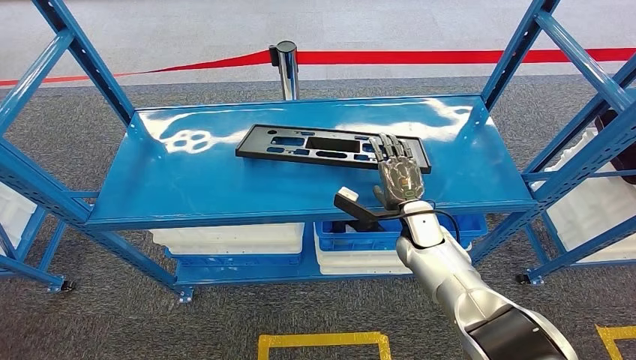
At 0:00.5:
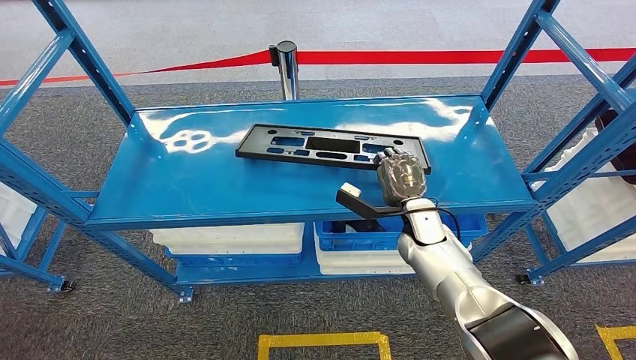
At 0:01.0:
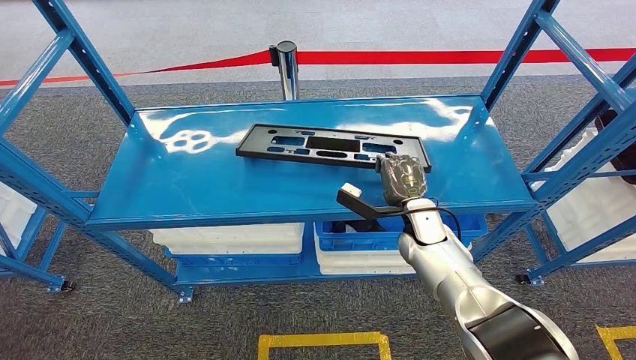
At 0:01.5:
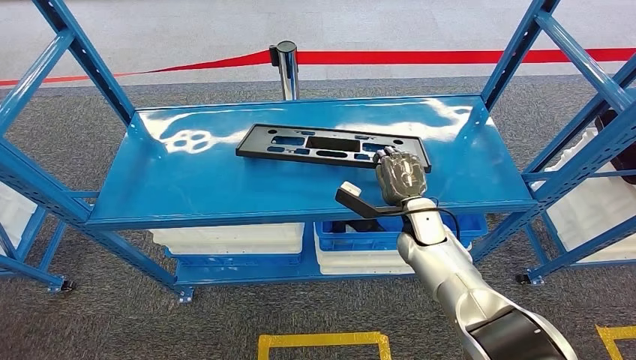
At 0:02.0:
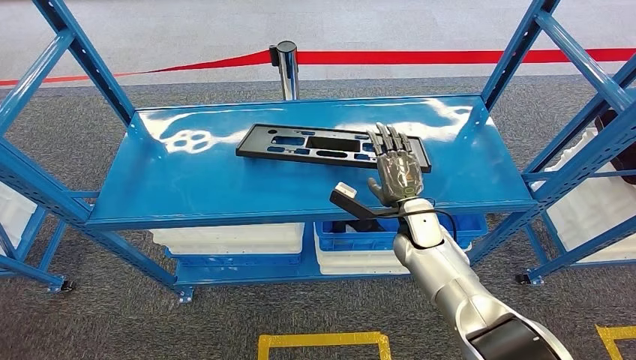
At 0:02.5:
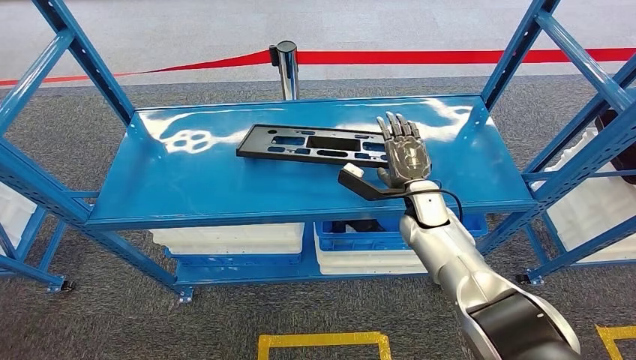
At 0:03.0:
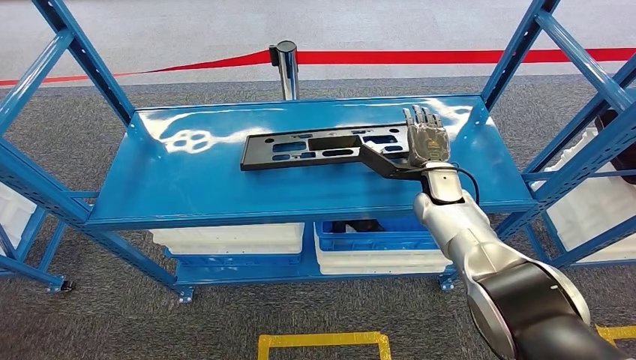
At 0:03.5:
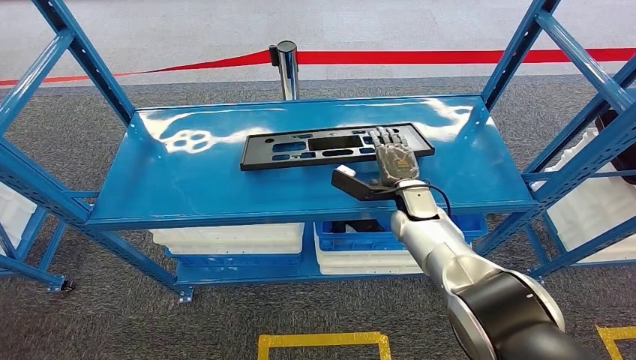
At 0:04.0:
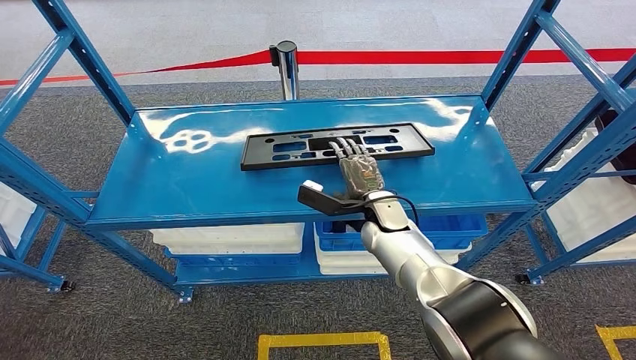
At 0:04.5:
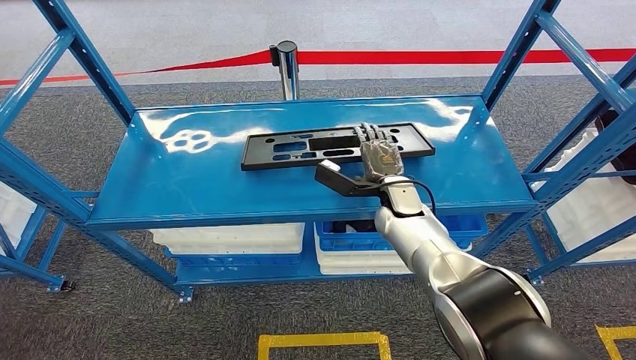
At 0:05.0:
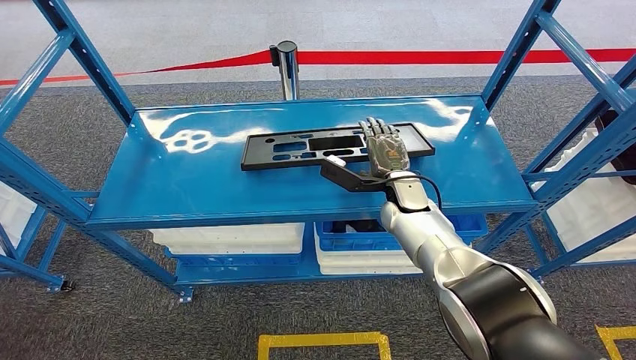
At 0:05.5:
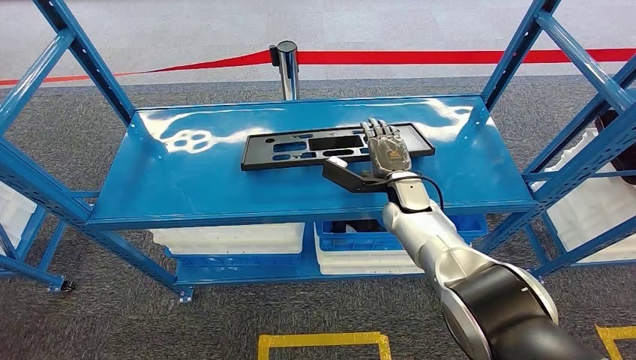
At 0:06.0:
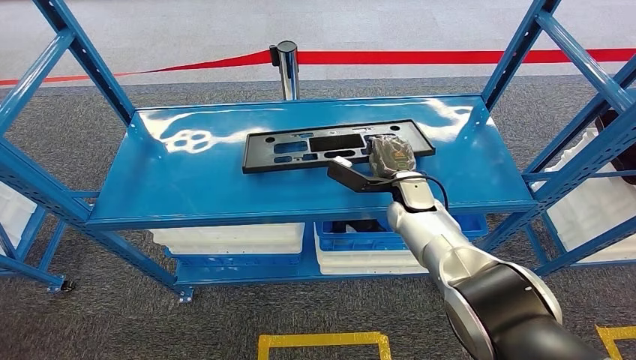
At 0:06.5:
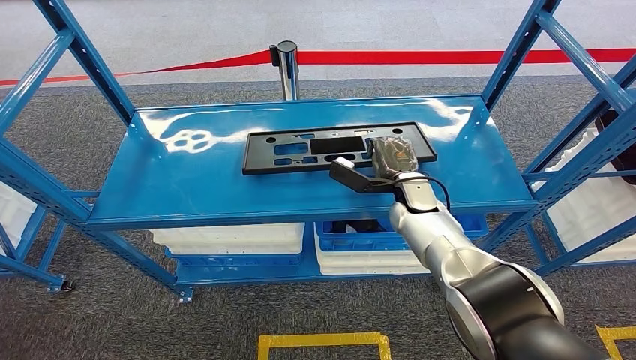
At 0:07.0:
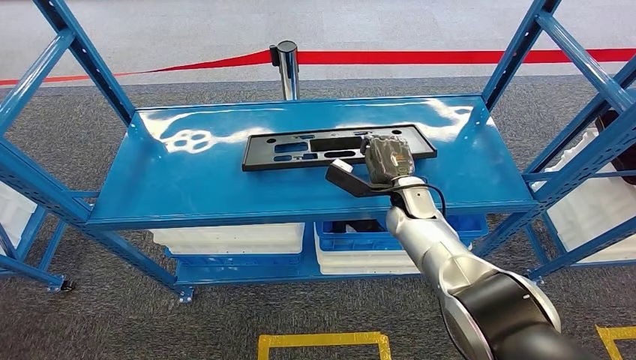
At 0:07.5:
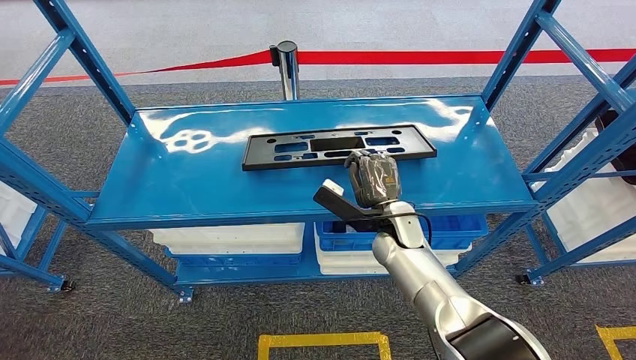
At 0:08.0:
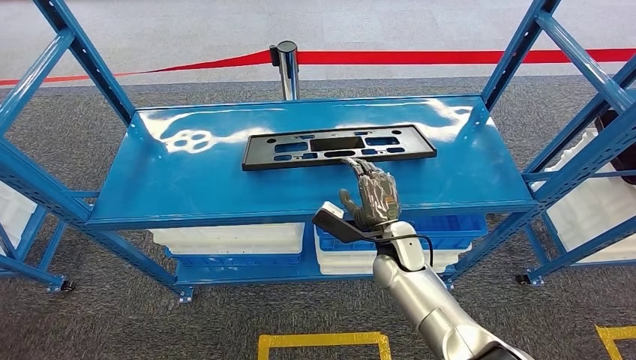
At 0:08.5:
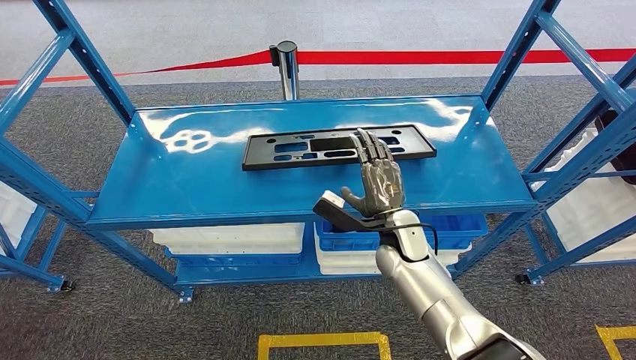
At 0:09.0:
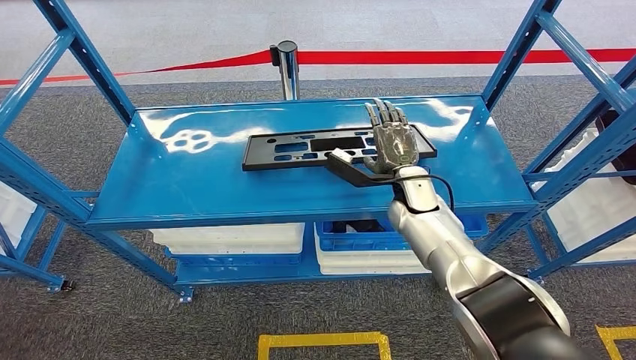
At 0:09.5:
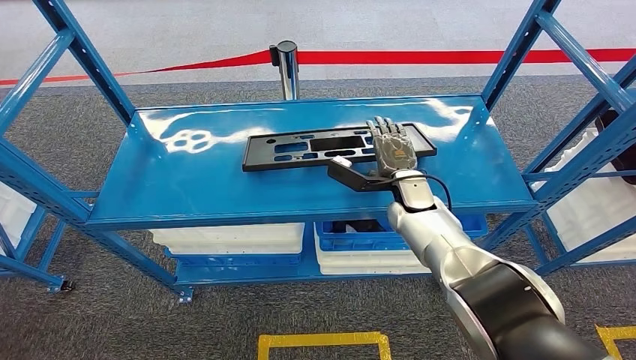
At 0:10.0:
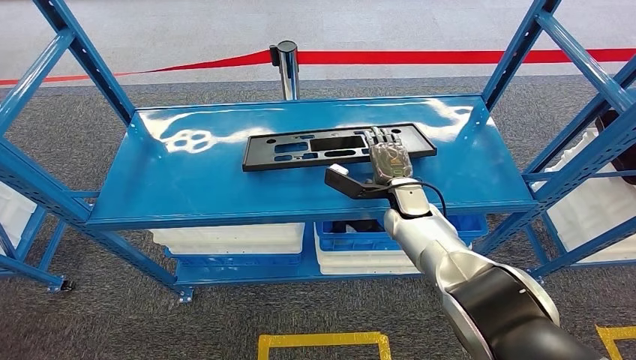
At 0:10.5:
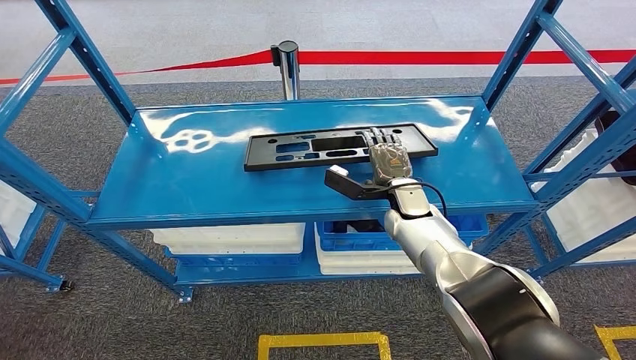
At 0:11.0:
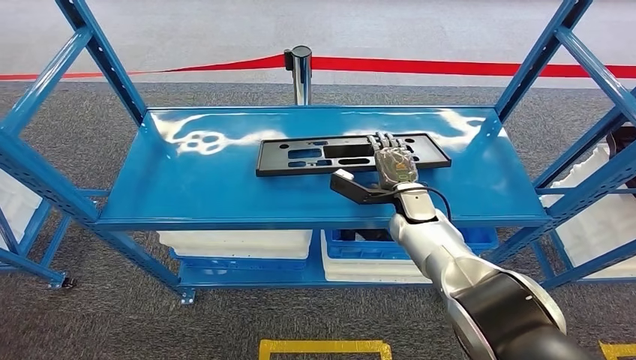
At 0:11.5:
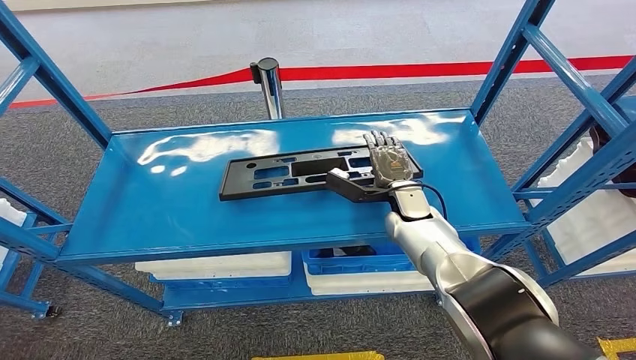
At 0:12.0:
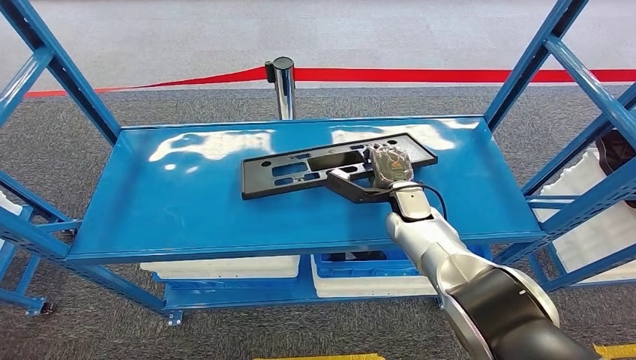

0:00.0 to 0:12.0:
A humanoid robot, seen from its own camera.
0:00.0 to 0:02.0: The hands make only small movements.
0:02.0 to 0:04.0: The right hand goes some 5 cm to the left.
0:04.0 to 0:06.0: The right hand shifts approximately 5 cm to the right.
0:06.0 to 0:08.0: The right hand travels backward by approximately 10 cm.
0:08.0 to 0:10.0: The right hand travels forward by approximately 10 cm.

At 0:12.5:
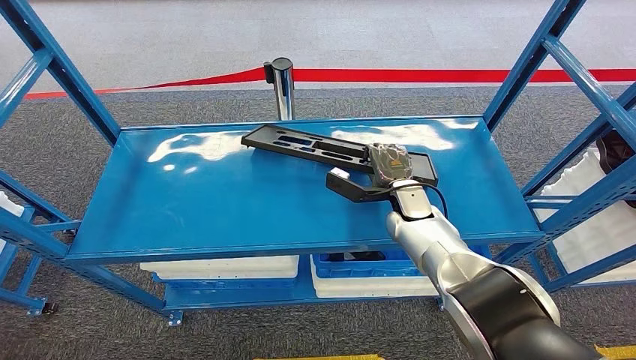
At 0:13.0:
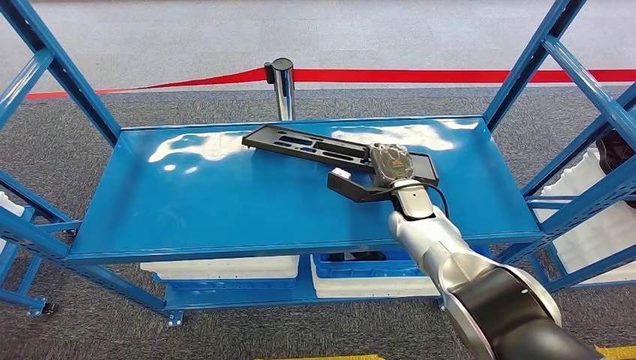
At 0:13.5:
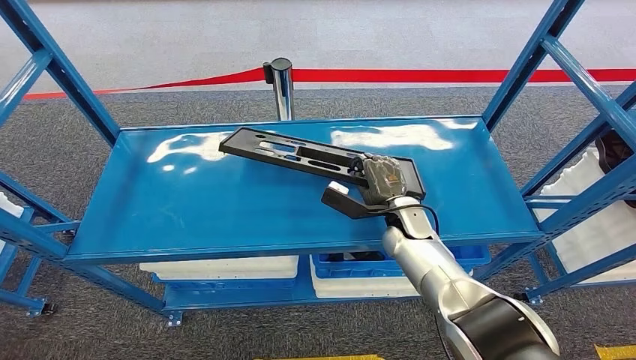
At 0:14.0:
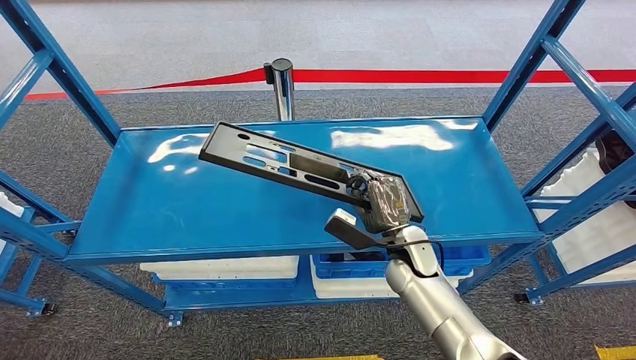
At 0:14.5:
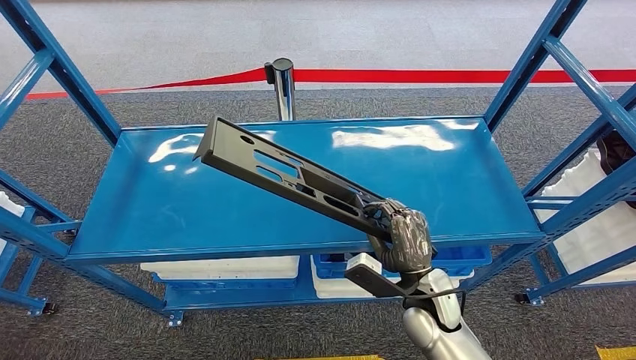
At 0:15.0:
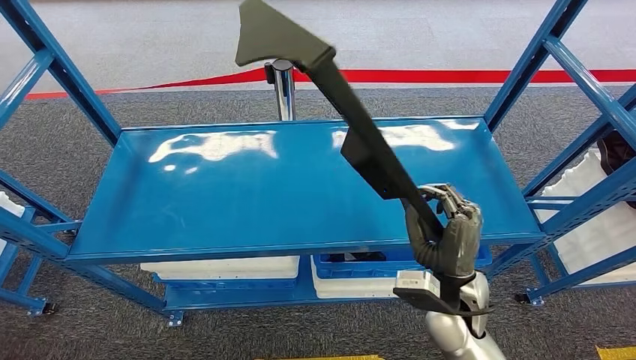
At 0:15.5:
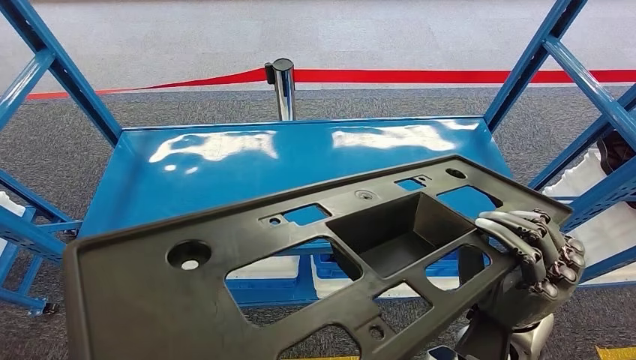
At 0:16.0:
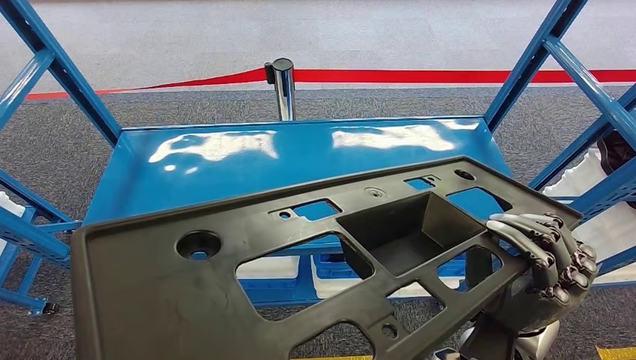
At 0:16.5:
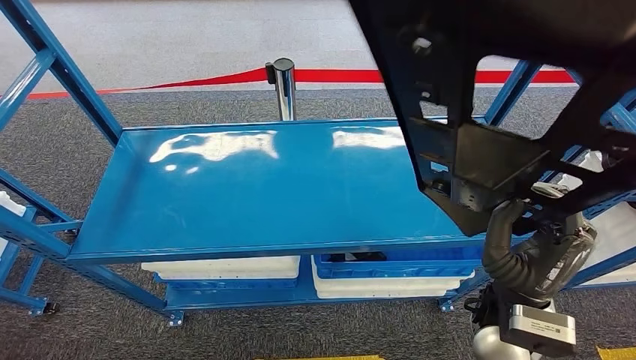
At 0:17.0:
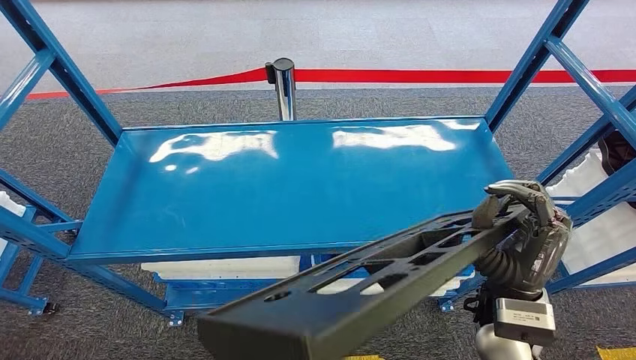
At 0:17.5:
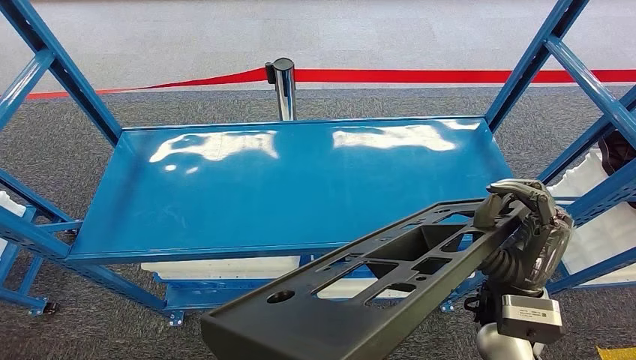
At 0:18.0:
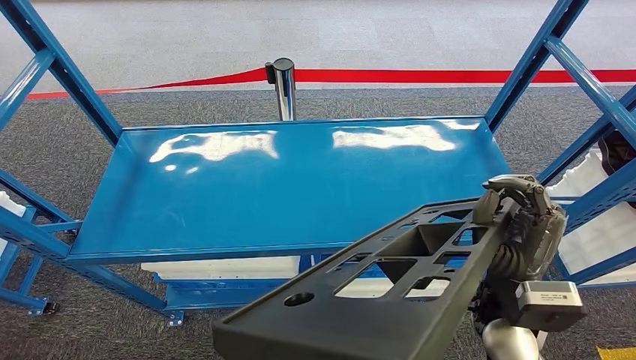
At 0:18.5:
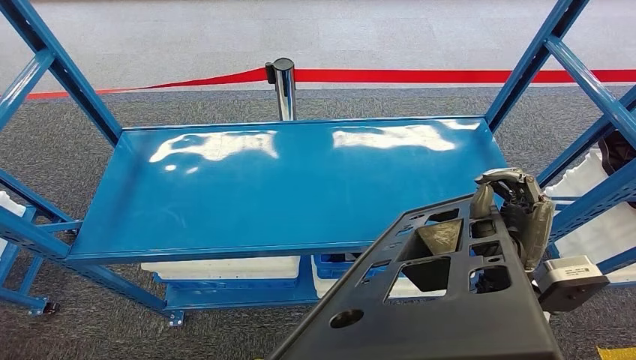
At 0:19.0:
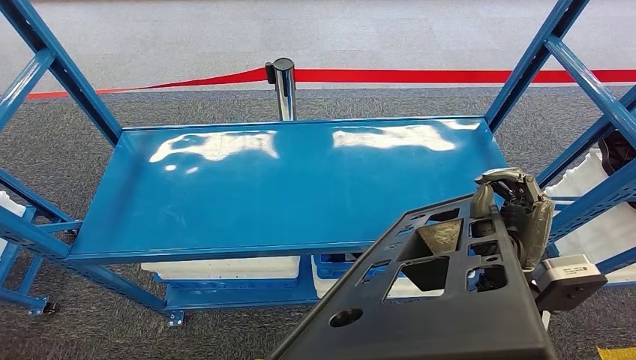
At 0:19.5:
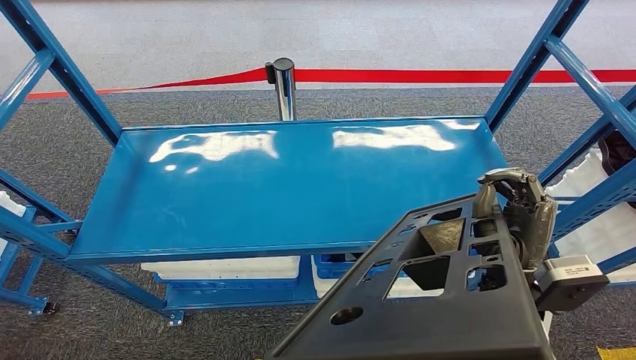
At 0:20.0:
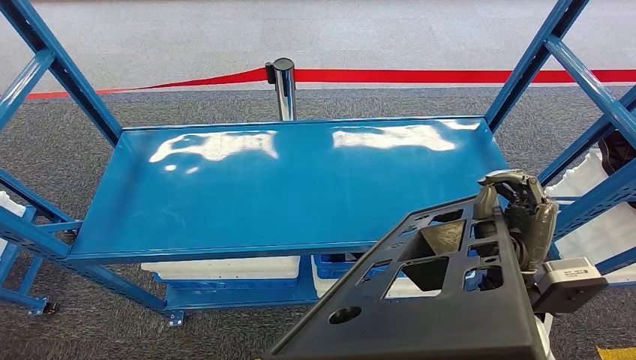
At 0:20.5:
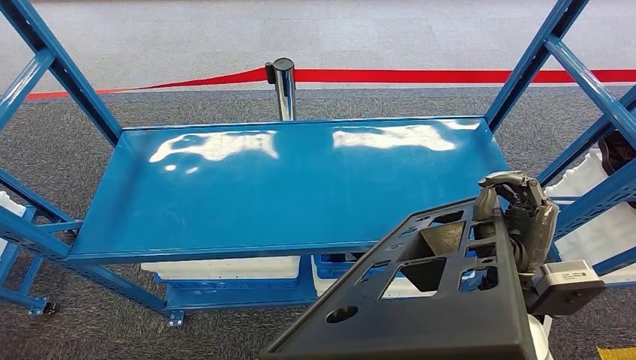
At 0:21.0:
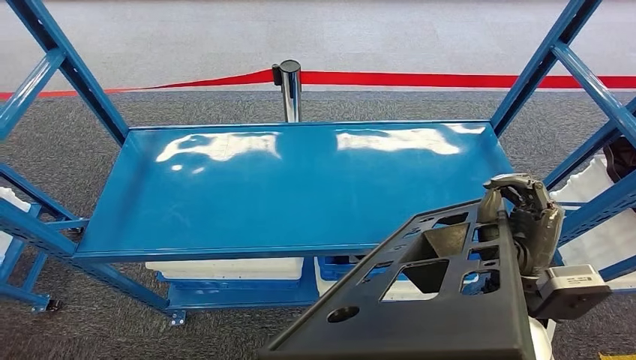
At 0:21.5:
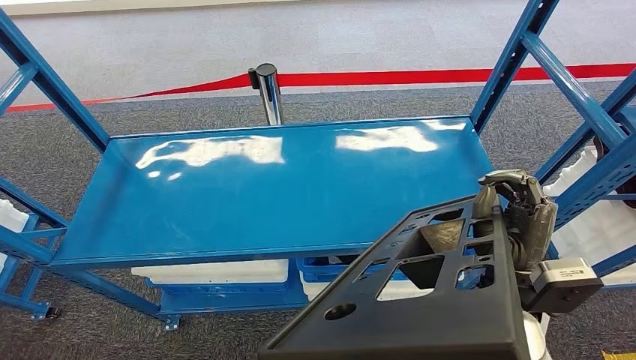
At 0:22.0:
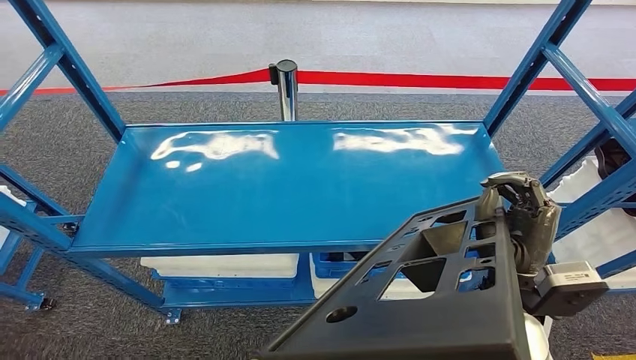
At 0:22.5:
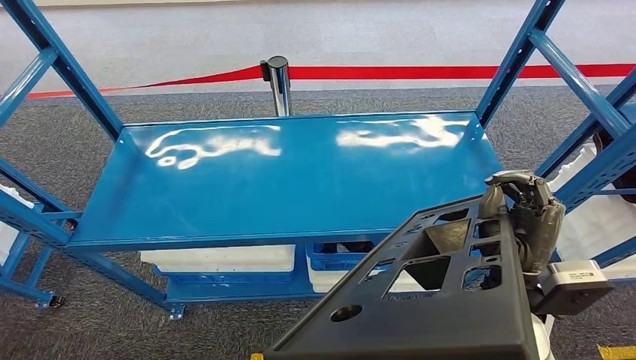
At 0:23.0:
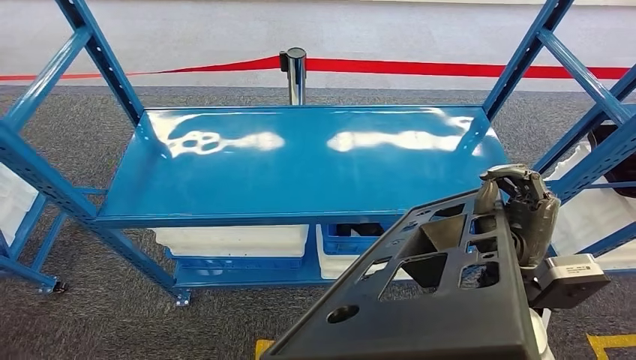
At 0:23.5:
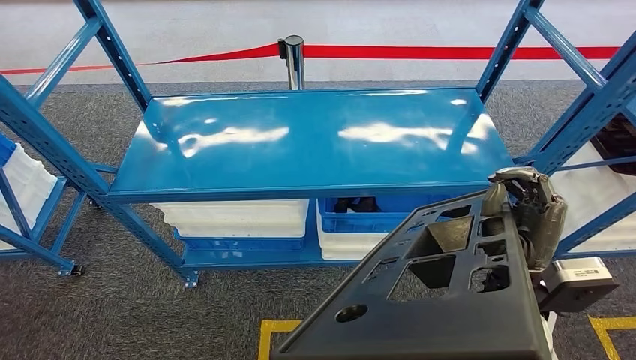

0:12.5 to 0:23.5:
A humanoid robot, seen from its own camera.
Step, 0:12.5 to 0:15.5: Pick up the large material from the shelf.
0:12.5 to 0:14.5: The right hand heads backward, covering roughly 15 cm.
0:18.0 to 0:20.0: The hands stay close to where they were, moving slightly.
